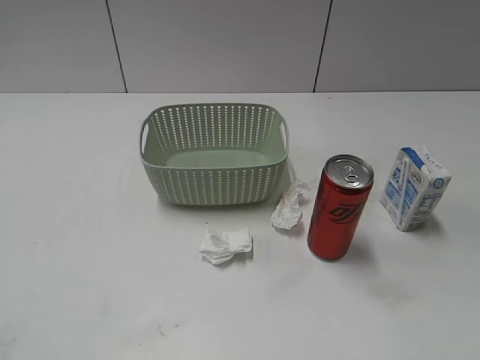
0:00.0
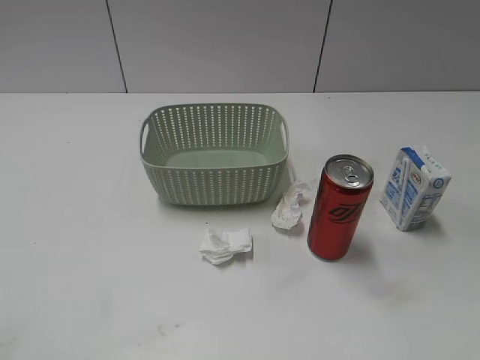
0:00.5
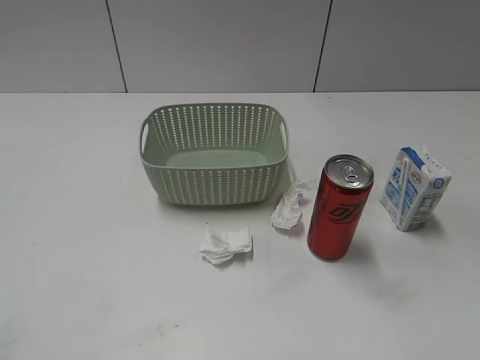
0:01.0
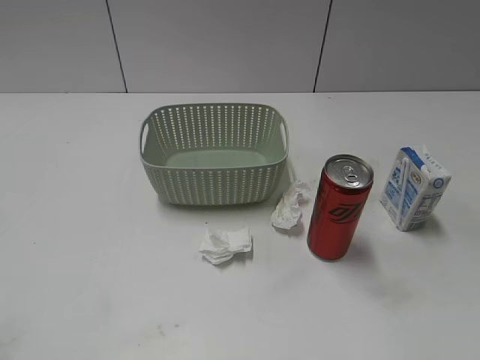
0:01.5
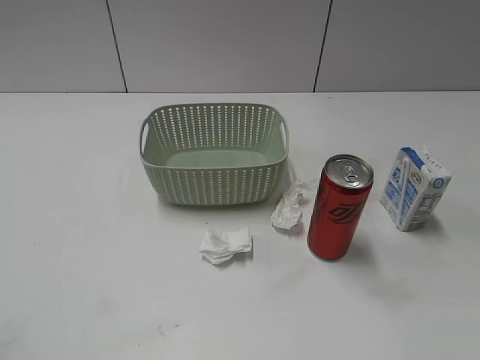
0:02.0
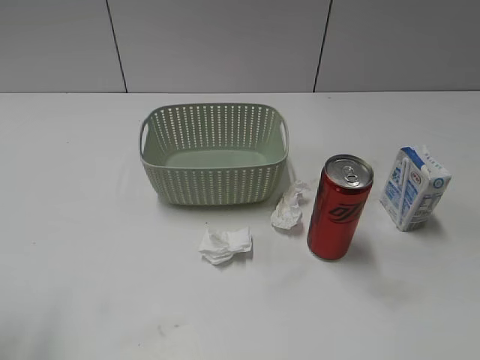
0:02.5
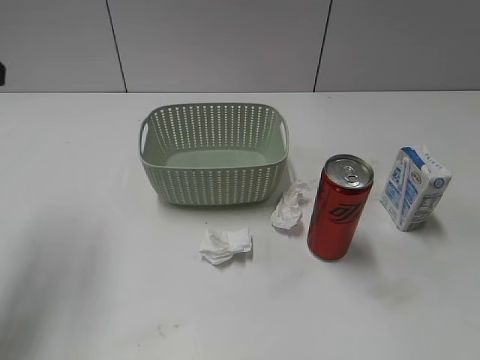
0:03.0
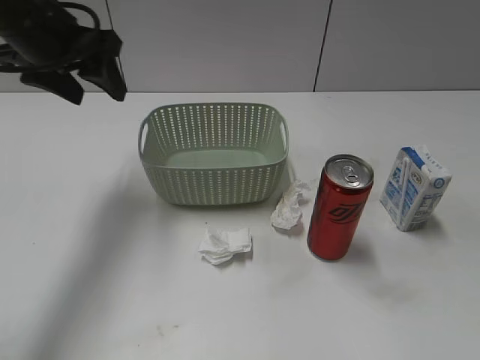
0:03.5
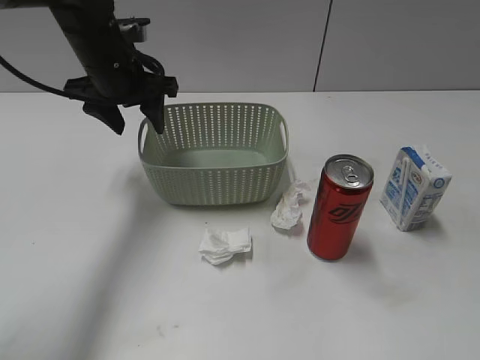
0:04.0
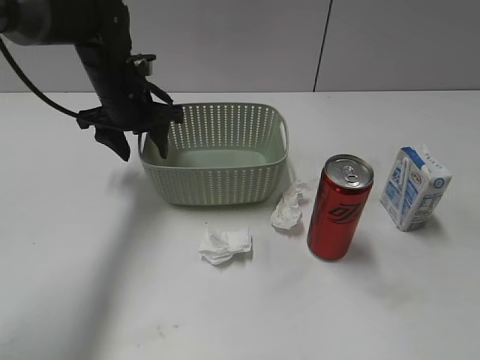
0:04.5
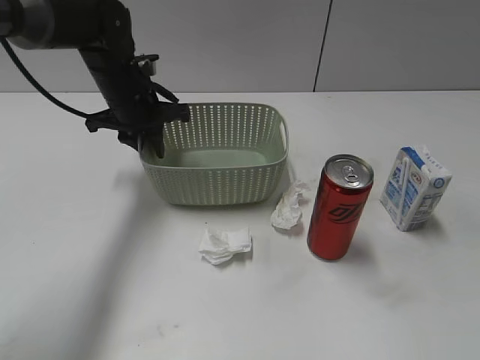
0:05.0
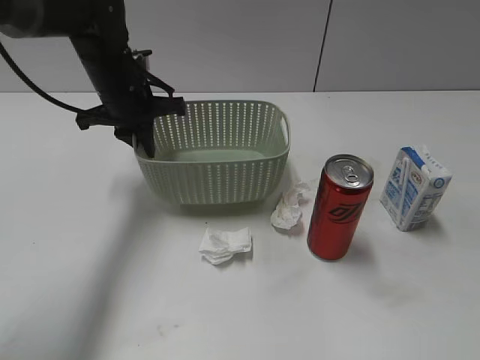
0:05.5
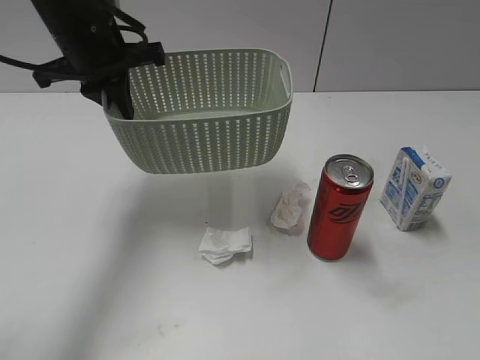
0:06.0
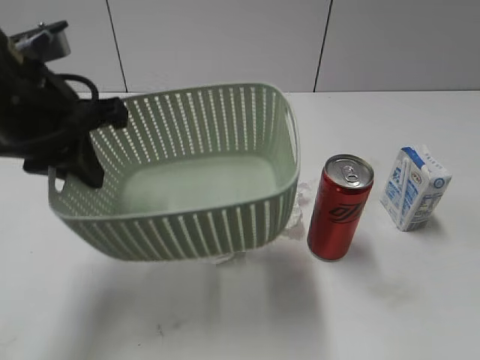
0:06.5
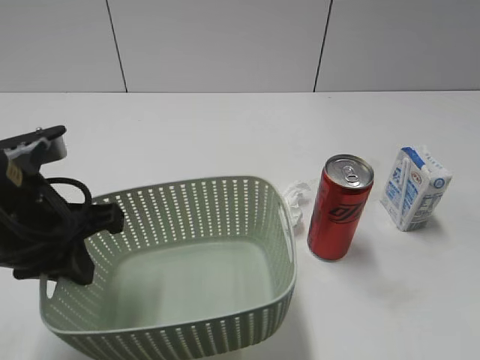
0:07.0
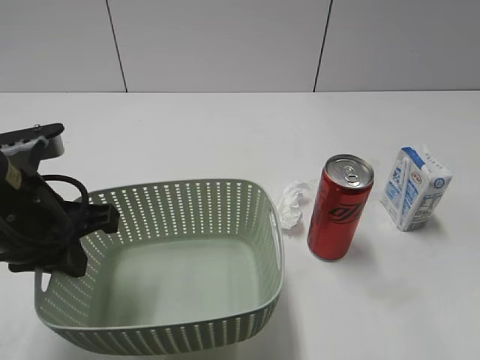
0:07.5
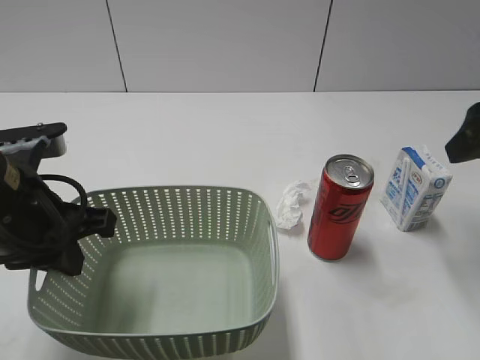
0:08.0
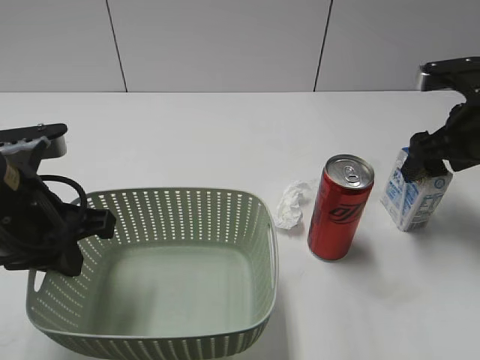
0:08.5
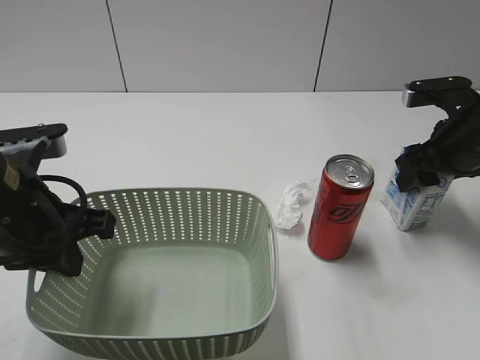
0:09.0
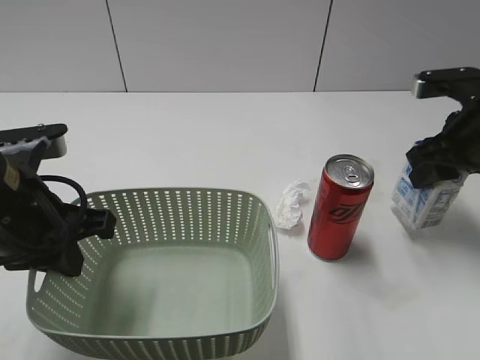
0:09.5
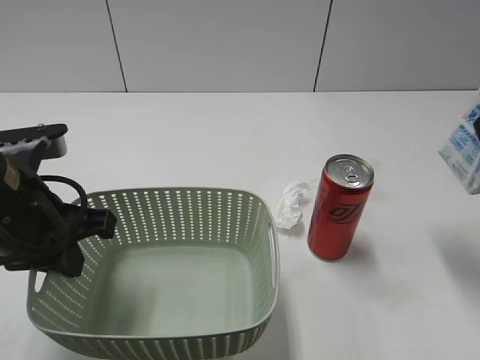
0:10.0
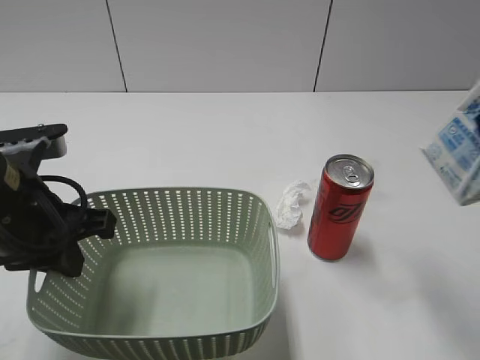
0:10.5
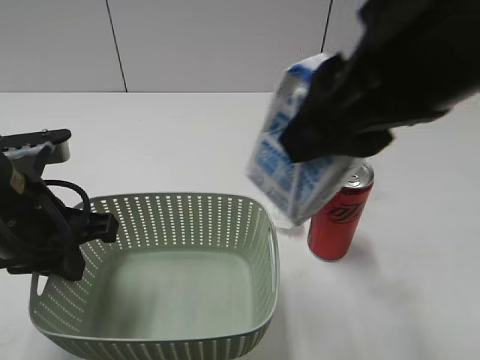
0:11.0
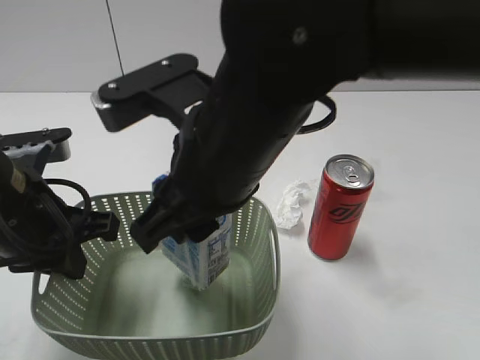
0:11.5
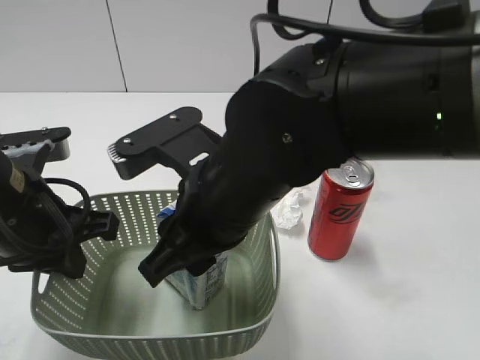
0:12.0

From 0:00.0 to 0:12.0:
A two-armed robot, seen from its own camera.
Step, from 0:03.0 to 0:05.0: Grasp the basket with left gripper.
Step, from 0:05.5 to 0:07.0: Lift the basket with left gripper.
Step, from 0:07.5 to 0:09.0: Grasp the milk with right gripper.
From 0:02.0 to 0:04.0: The left gripper shifts approximately 40 cm forward and to the right.
From 0:04.0 to 0:06.0: The left gripper moves roughly 5 cm, and closes.
From 0:06.0 to 0:08.0: The right gripper shifts roughly 25 cm forward. The left gripper goes about 20 cm backward.
From 0:08.0 to 0:10.0: The right gripper goes downward and returns, about 10 cm each way, and closes.
From 0:10.0 to 0:12.0: The right gripper shifts approximately 25 cm to the left.

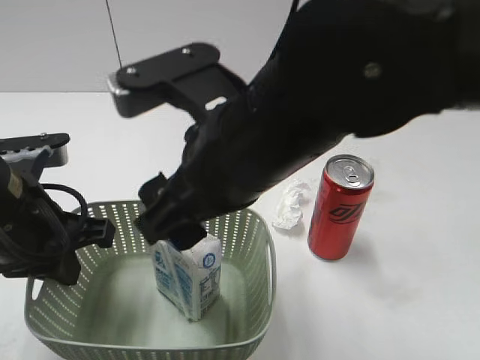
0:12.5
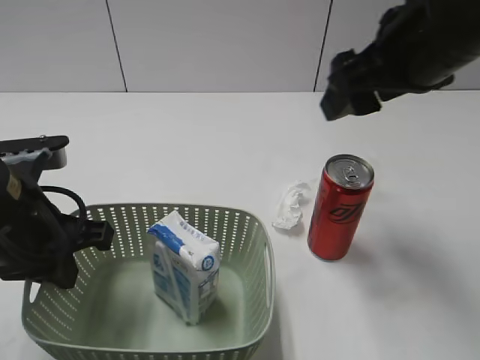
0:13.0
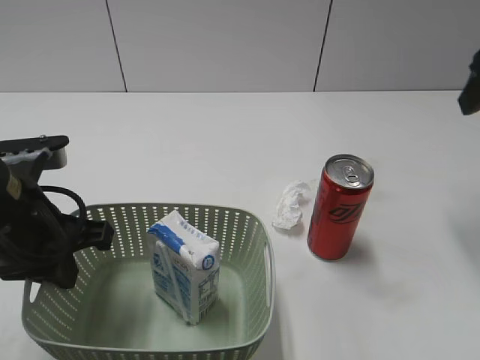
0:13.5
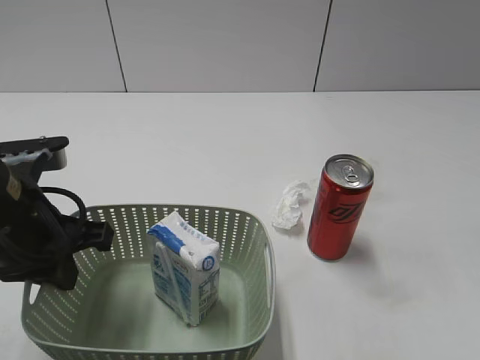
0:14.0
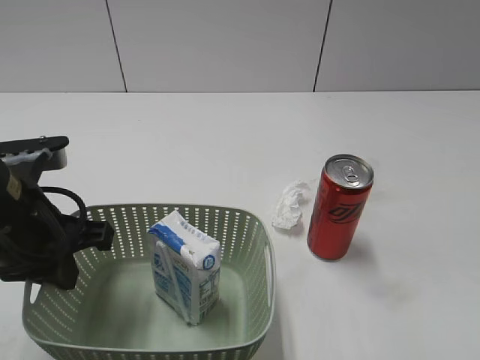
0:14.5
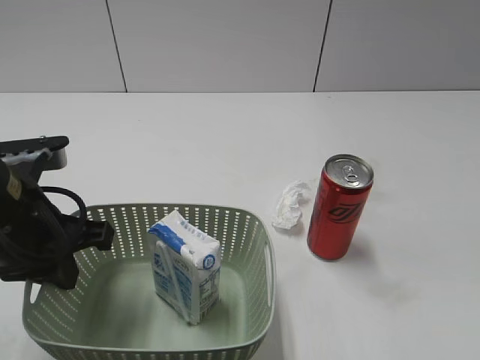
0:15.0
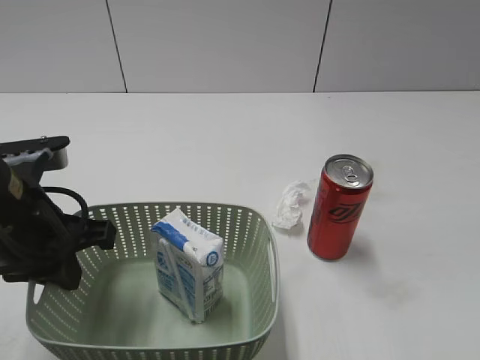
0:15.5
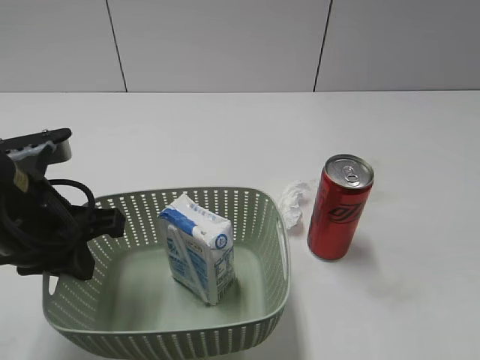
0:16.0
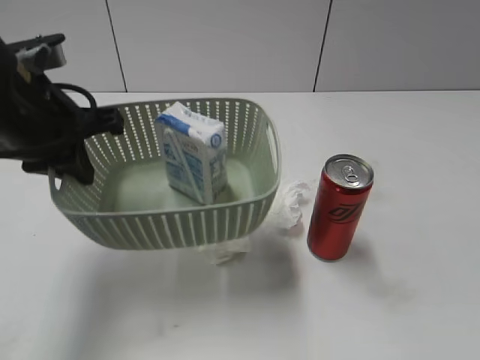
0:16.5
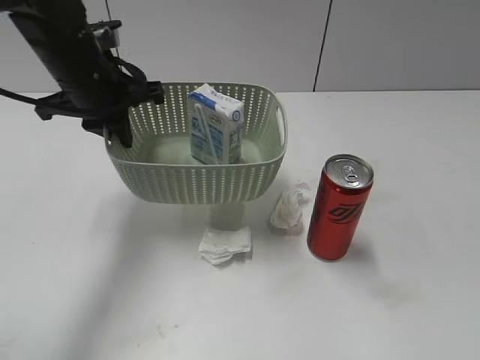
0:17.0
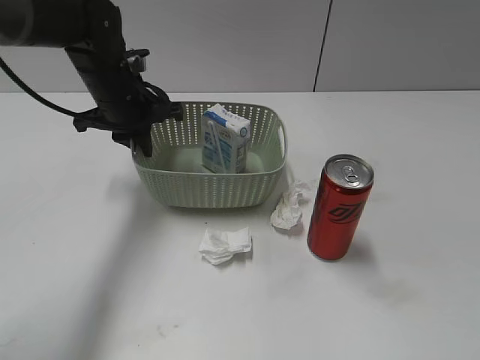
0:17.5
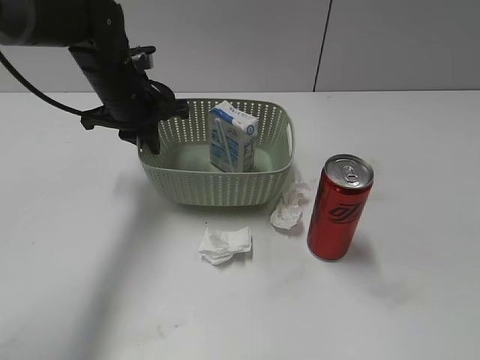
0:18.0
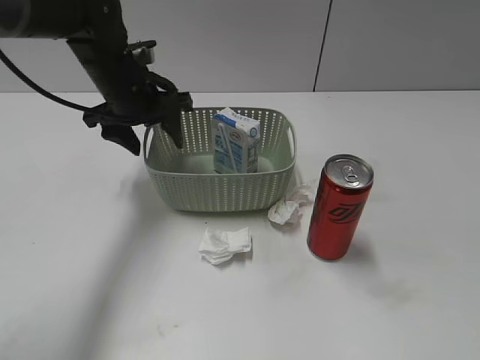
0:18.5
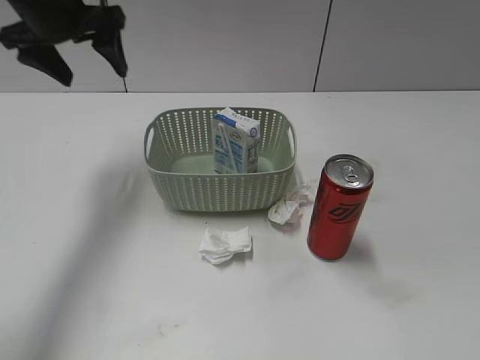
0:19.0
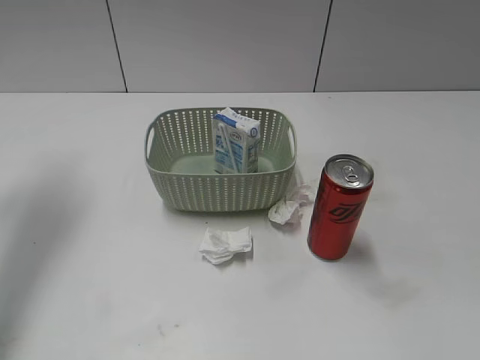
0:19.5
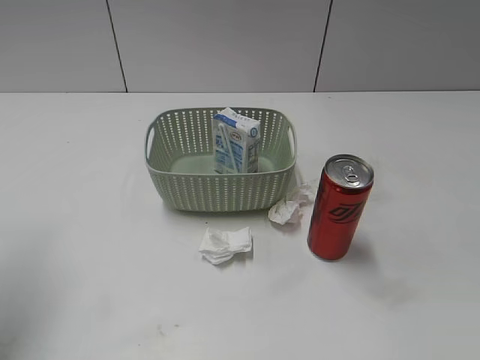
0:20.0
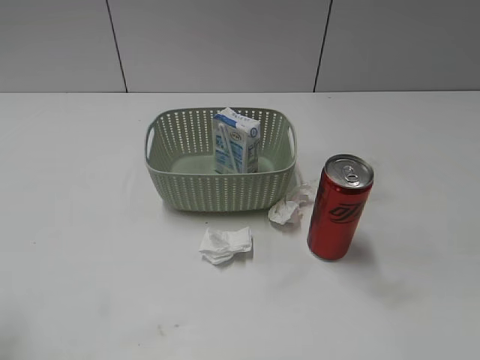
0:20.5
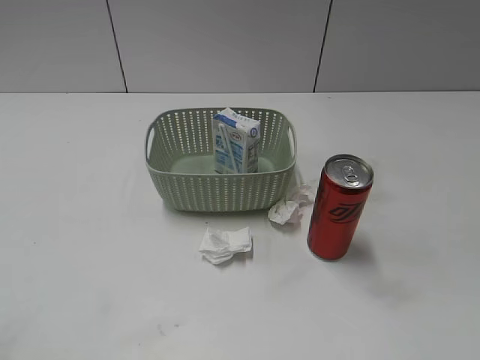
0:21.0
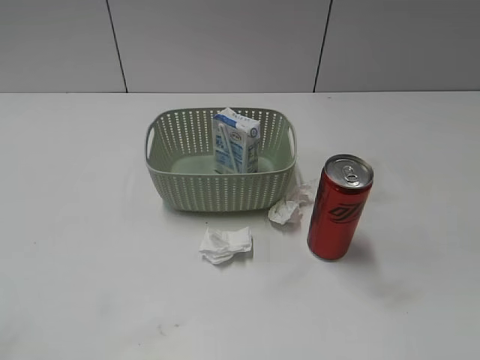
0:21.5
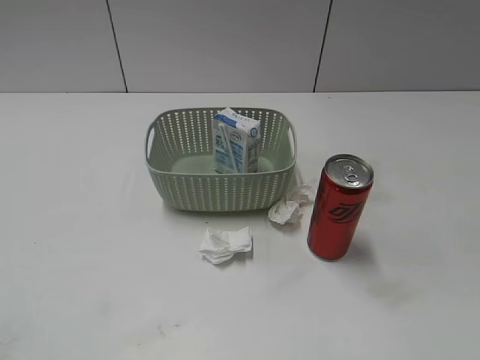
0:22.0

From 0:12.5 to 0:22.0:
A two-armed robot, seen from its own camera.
Step, from 0:13.0 to 0:18.5: Place the basket on the table with left gripper.
From 0:12.5 to 0:14.5: The right gripper goes about 30 cm to the right.
From 0:14.5 to 0:16.5: The left gripper moves forward and upward, some 10 cm; the right gripper goes approximately 10 cm backward.
From 0:16.5 to 0:18.0: The left gripper travels forward and downward by roughly 15 cm.
From 0:18.0 to 0:20.0: The left gripper is displaced backward, to the left and upward by roughly 30 cm, and opens its fingers.
From 0:20.0 to 0:22.0: The left gripper moves backward, approximately 25 cm.

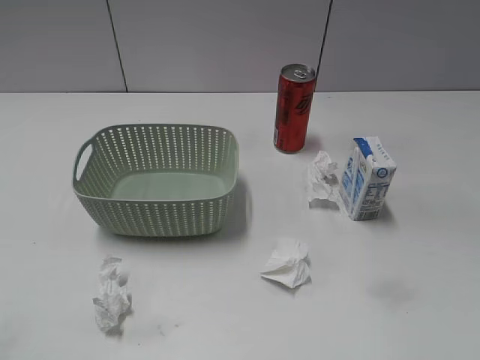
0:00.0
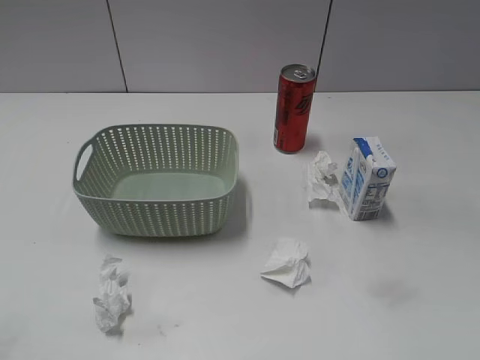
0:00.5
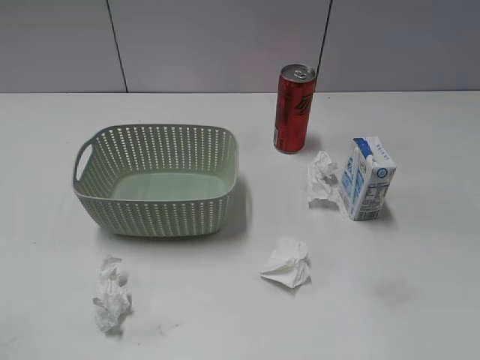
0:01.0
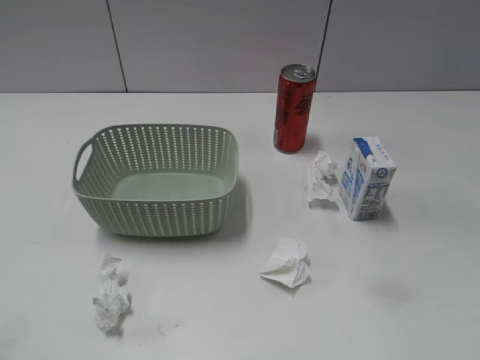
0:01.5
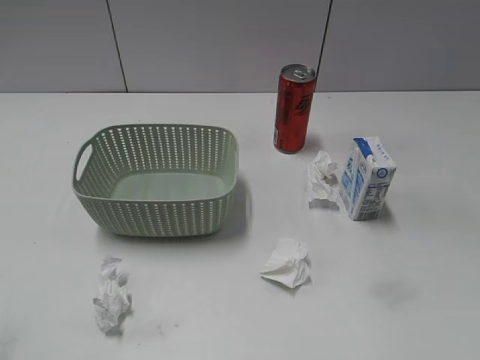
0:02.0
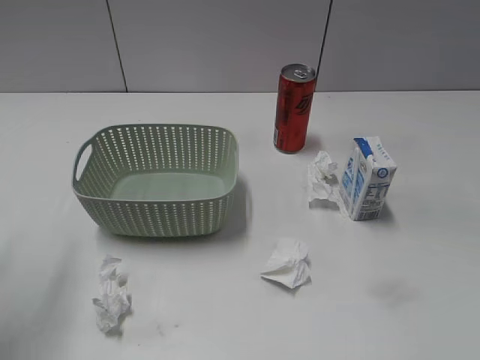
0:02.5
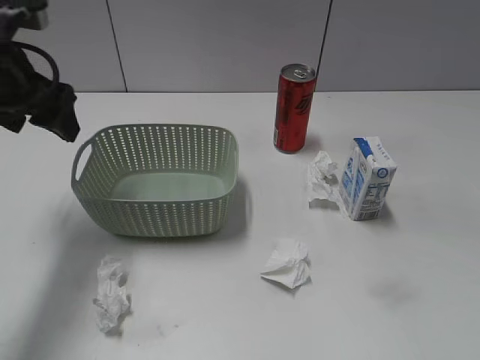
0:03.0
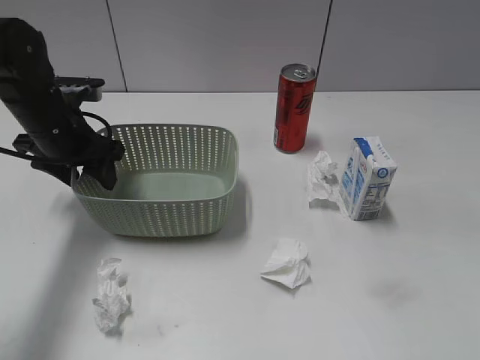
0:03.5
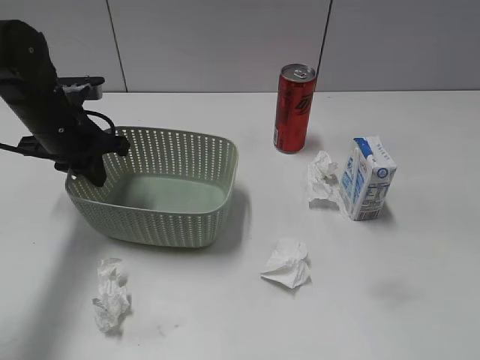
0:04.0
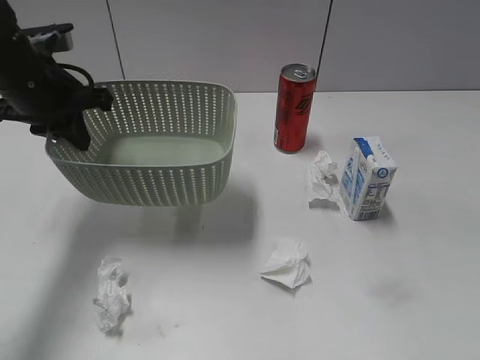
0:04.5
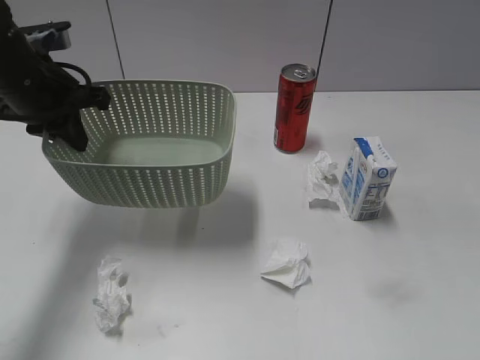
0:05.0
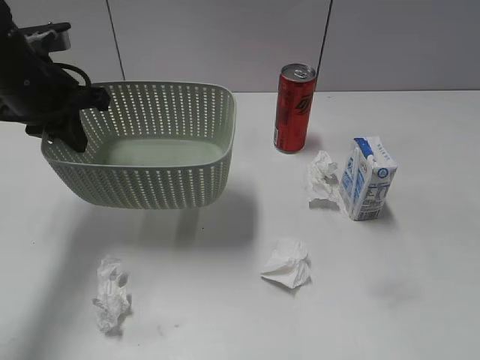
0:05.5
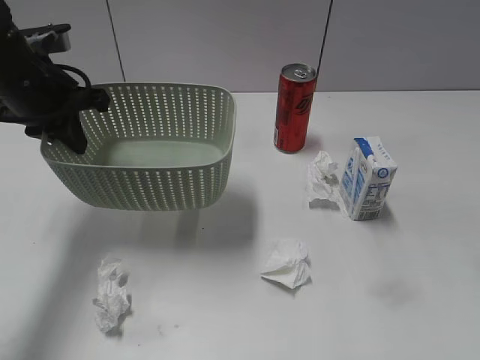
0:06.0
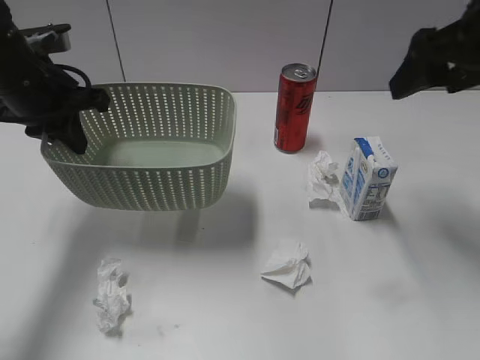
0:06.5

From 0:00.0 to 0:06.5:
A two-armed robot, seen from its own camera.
Step, from 0:03.0 to 0:03.5: Grasp the basket with left gripper.
Step, from 0:04.0 to 0:04.5: Lift the basket with left gripper.
From 0:02.0 to 0:04.5: The left gripper goes roughly 30 cm forward, and closes up.
From 0:04.5 to 0:06.5: The right gripper shifts roughly 30 cm forward.
